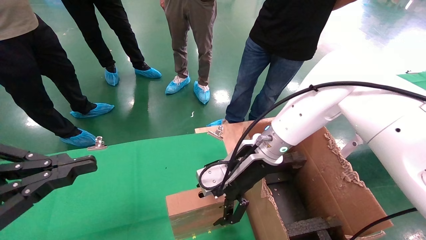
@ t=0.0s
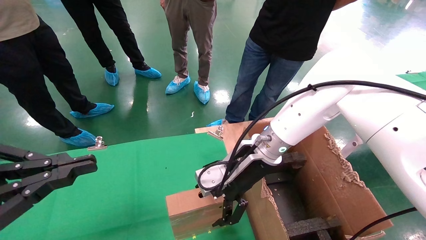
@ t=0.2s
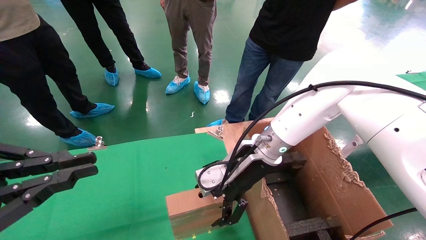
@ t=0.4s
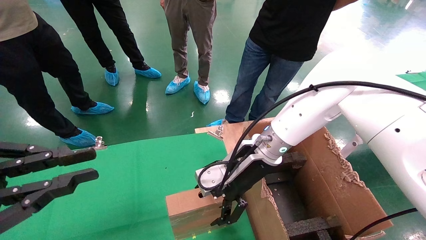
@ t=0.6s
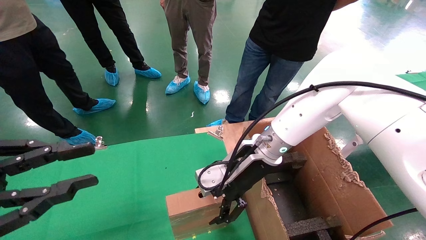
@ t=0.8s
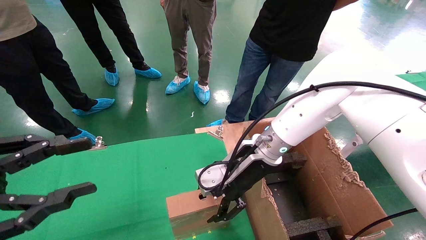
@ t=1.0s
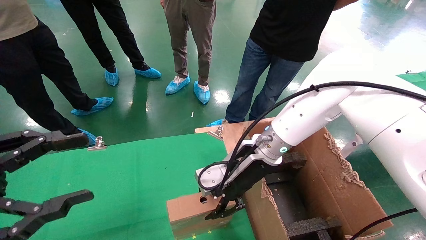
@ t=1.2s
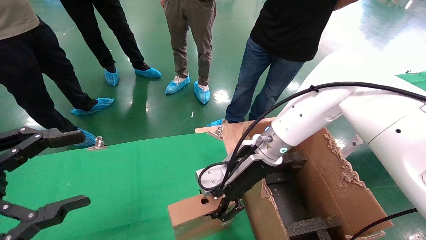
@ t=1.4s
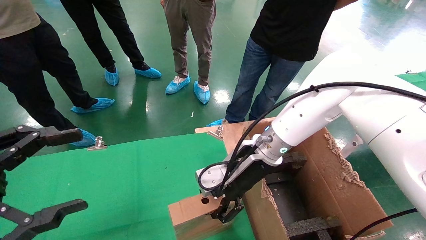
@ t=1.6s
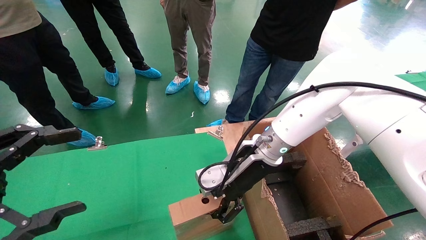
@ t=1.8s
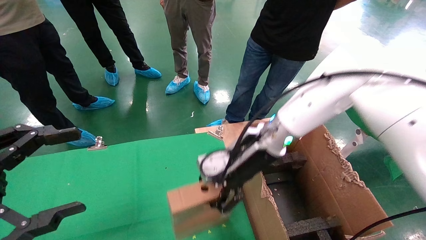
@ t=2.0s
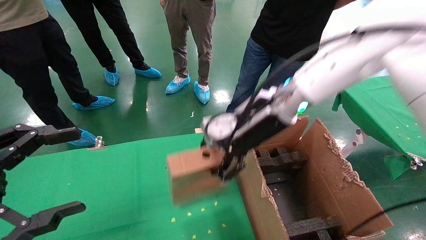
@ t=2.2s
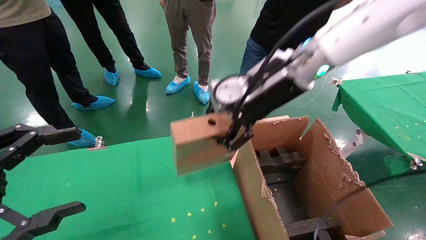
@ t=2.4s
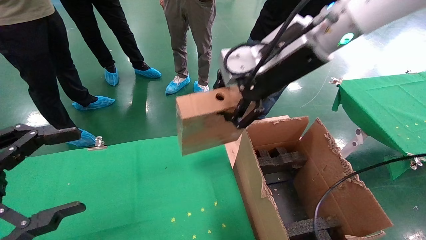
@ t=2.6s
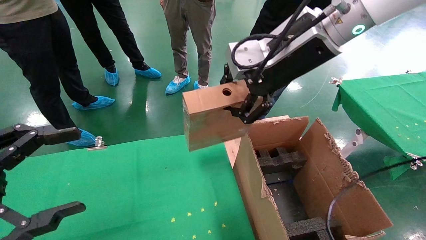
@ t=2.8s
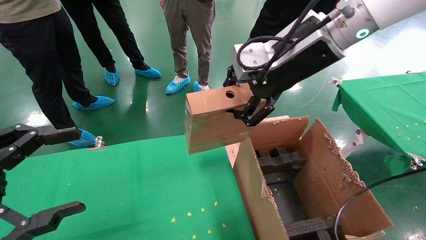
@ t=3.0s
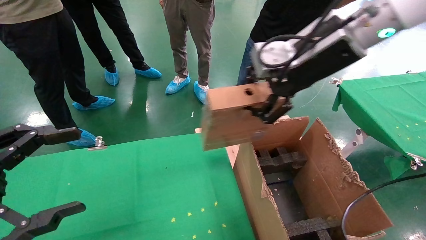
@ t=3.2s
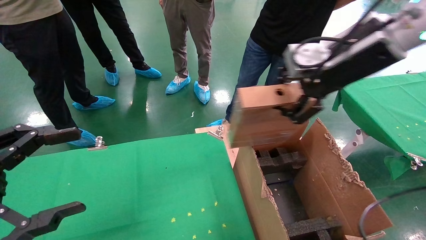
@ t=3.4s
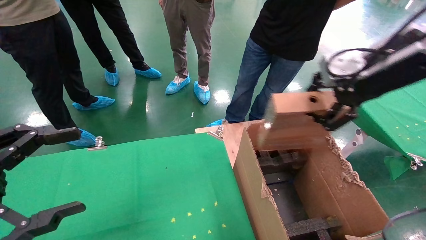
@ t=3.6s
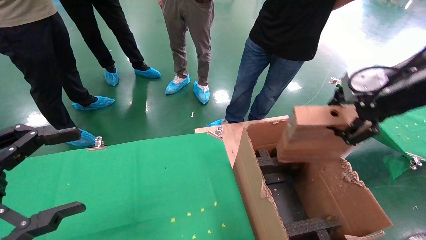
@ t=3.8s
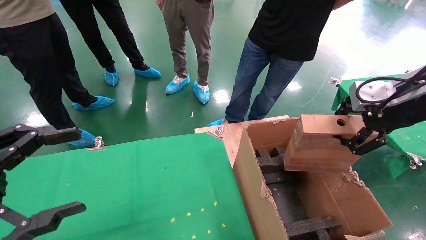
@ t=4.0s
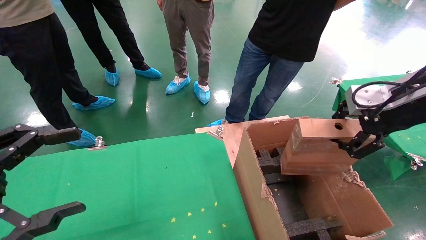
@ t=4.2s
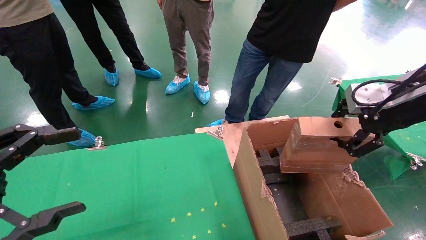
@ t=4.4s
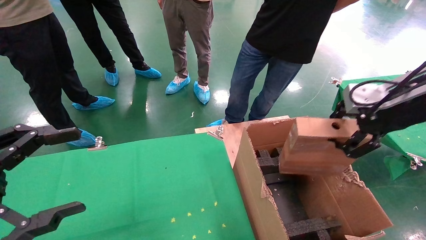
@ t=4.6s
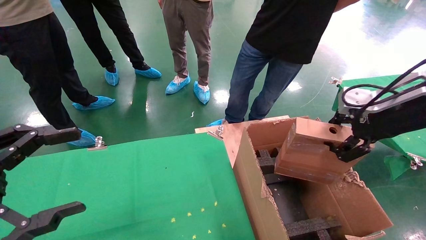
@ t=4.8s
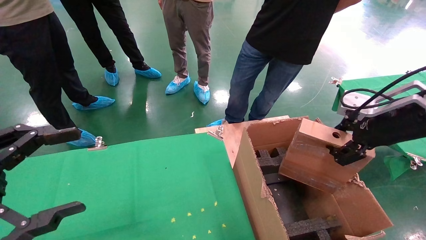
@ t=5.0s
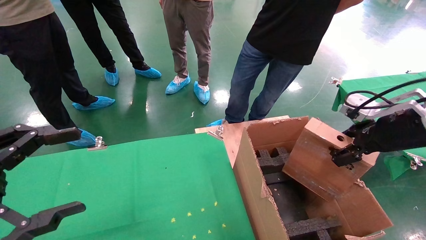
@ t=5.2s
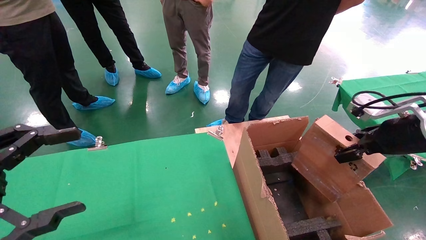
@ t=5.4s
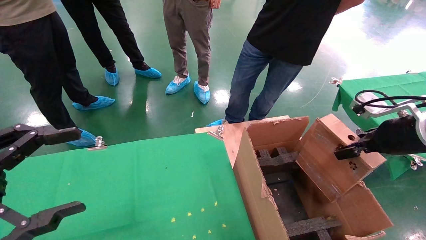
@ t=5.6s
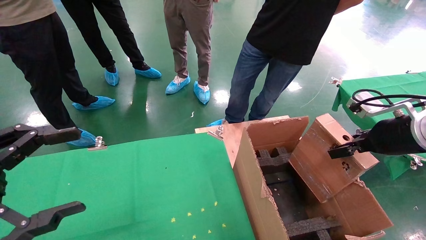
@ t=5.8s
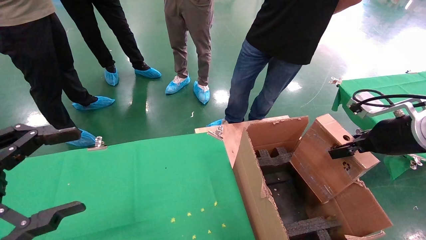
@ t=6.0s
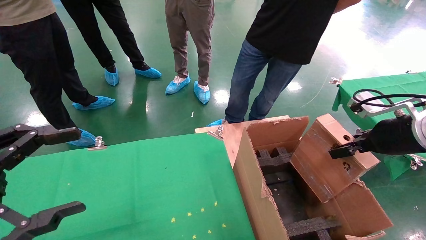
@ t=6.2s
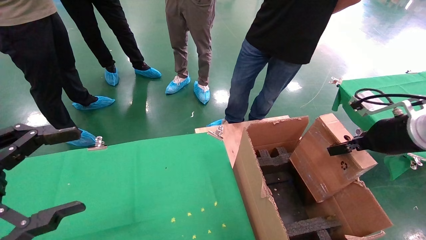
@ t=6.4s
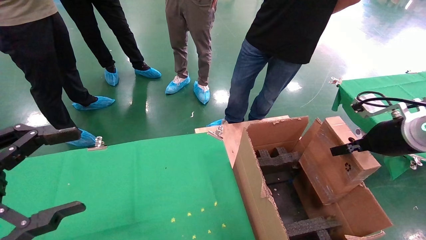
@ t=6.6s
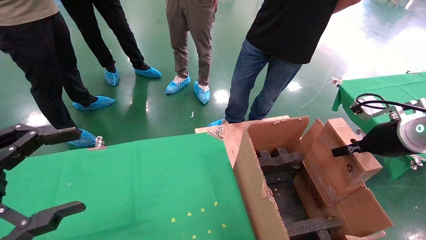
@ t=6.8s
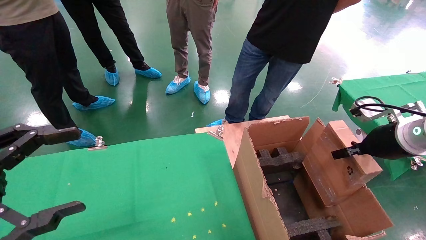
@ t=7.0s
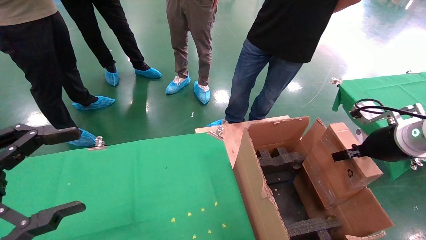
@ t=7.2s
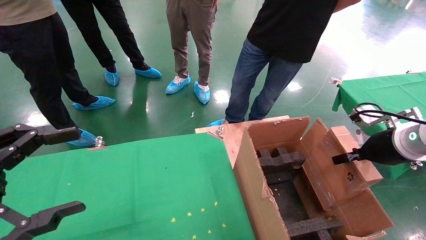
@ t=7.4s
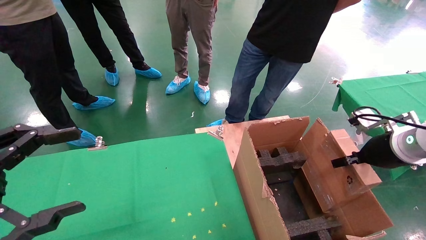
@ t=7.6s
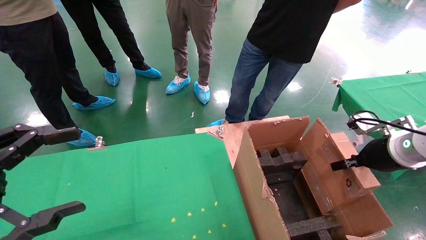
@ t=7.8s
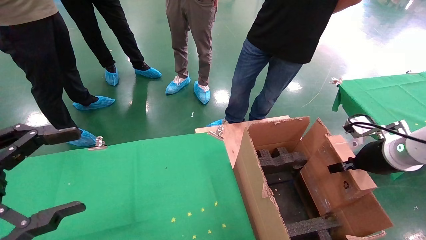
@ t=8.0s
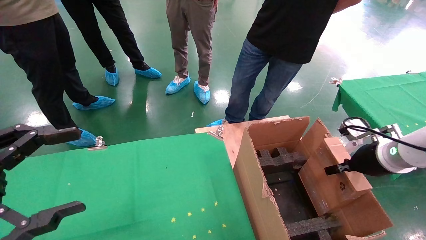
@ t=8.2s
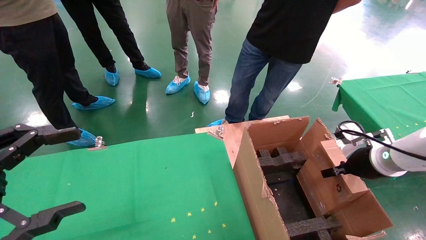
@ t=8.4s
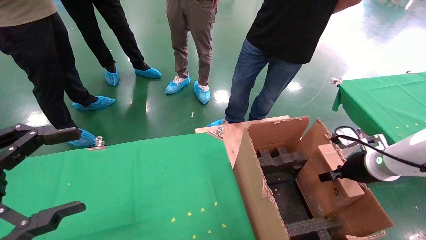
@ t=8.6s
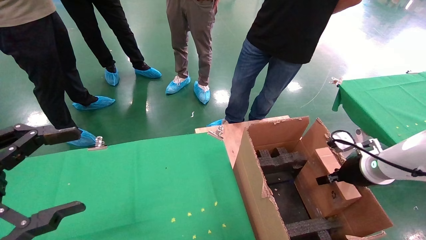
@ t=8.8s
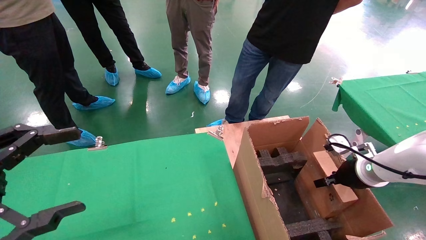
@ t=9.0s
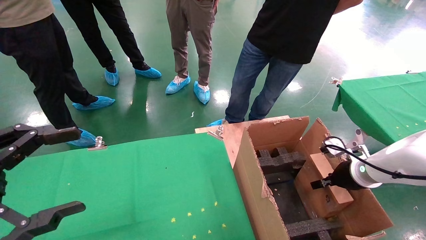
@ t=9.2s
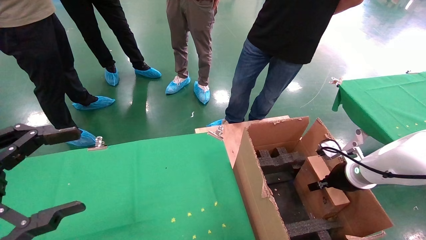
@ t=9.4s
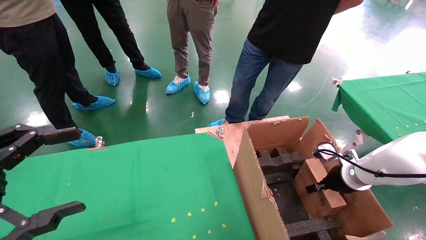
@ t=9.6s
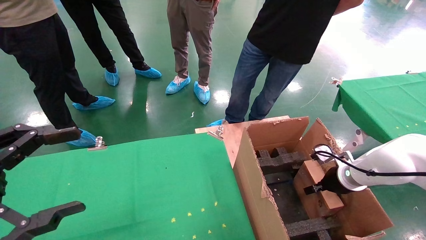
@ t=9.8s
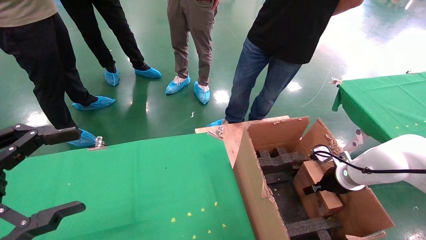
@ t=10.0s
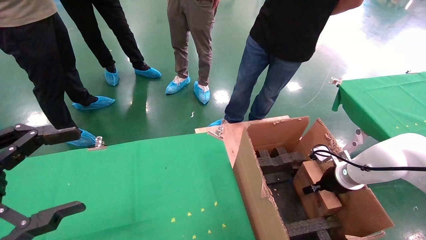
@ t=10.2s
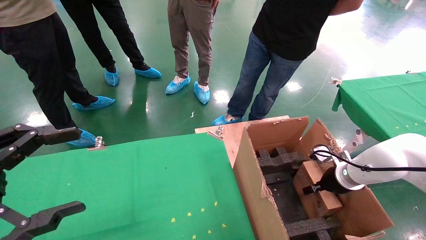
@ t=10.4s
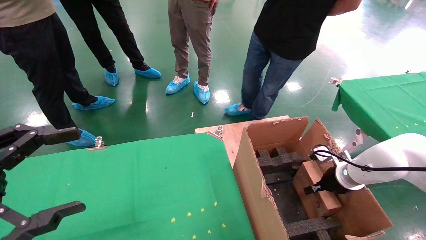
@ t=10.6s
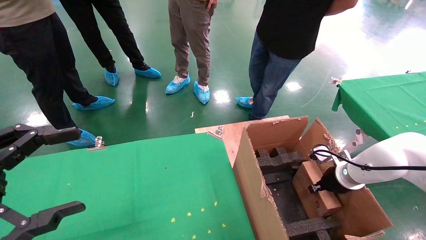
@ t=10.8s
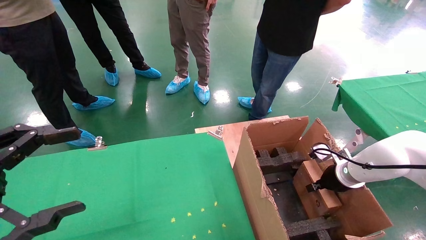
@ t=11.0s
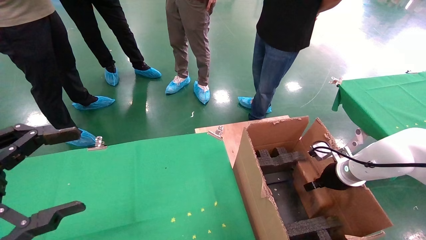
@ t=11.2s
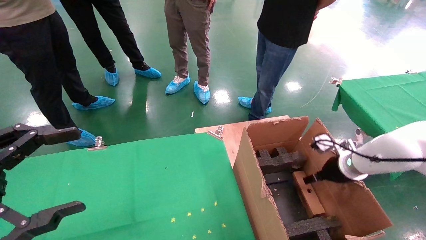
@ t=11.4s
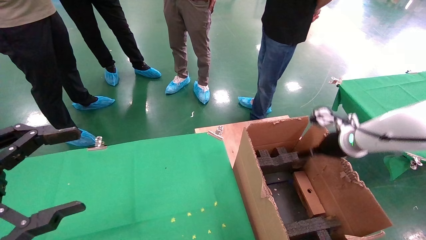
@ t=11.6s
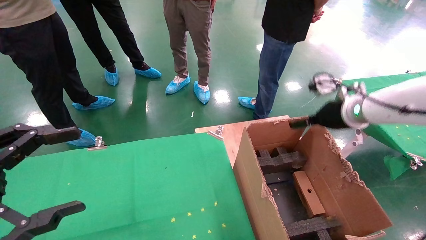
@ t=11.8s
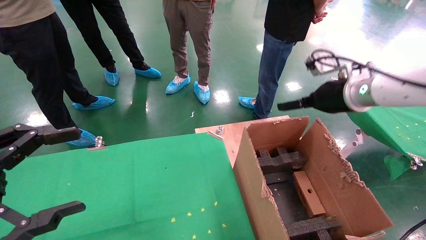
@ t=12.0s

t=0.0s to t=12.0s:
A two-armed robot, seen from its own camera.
Task of the whole recording: using a robotic arm to pick up a cardboard box and palace it the carton.
t=0.0s to t=1.6s: The right gripper closes. Meanwhile the left gripper opens.
t=1.6s to t=3.0s: The right gripper shifts roughly 20 cm upward.
t=3.0s to t=4.4s: The right gripper heads to the right, covering about 20 cm.
t=4.4s to t=6.0s: The right gripper goes roughly 10 cm downward.
t=6.0s to t=7.6s: The right gripper ends up roughly 5 cm from where it was.
t=7.6s to t=9.0s: The right gripper goes about 10 cm downward.
t=9.0s to t=10.4s: The right gripper goes some 5 cm downward.
t=10.4s to t=12.0s: The right gripper travels upward by about 20 cm, and opens its fingers.

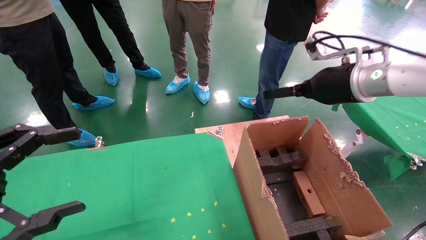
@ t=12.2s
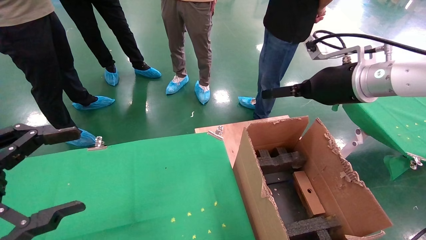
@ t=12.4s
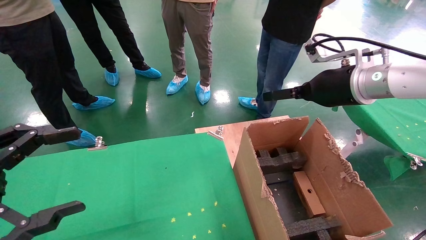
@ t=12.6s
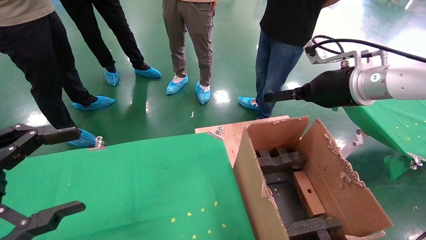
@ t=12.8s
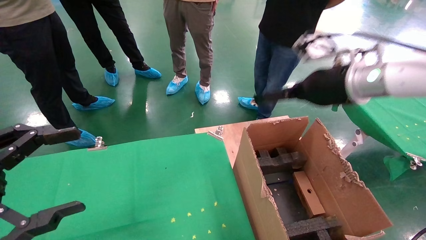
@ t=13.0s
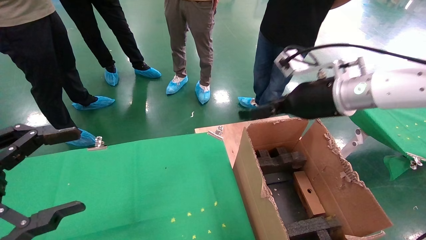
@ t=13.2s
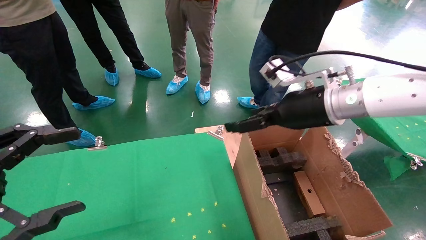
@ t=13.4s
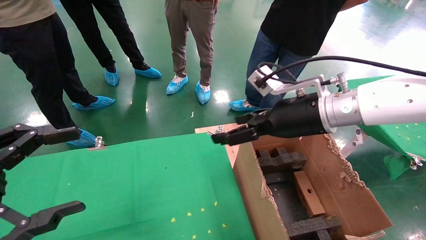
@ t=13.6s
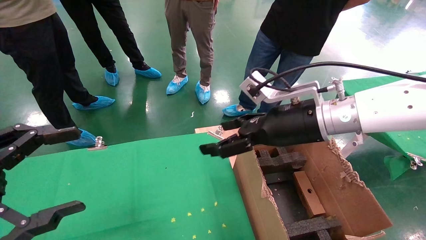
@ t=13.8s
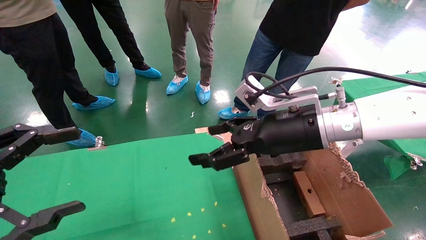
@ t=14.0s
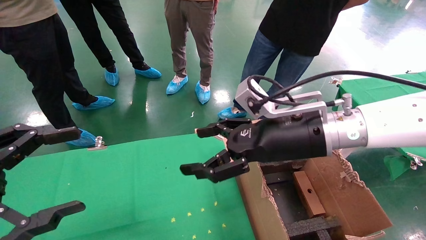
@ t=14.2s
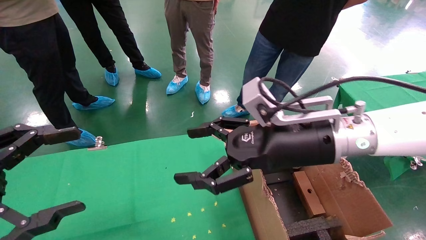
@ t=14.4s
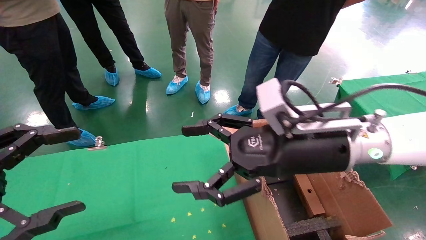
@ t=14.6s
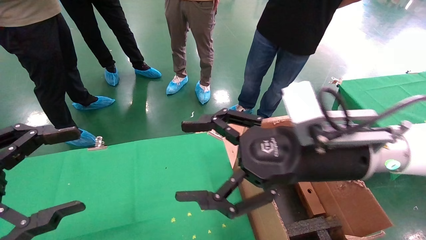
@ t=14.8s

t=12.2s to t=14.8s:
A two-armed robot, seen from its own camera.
Task of the whole recording: using a robotic arm to pick up a cardboard box and palace it the carton.
t=12.2s to t=13.4s: The right gripper moves to the left, some 5 cm.
t=13.4s to t=14.8s: The right gripper heads backward, covering some 10 cm.
